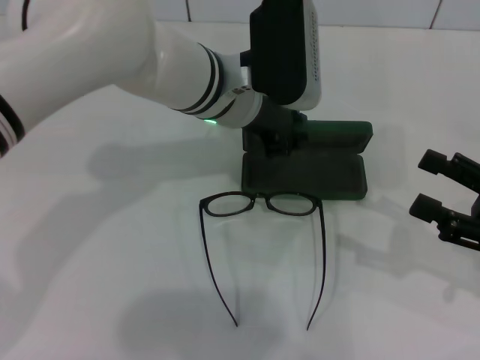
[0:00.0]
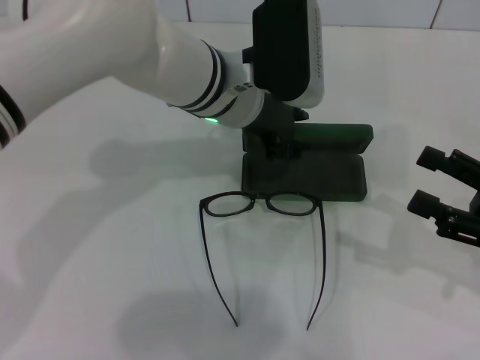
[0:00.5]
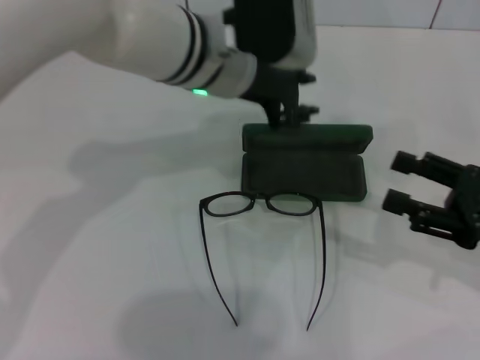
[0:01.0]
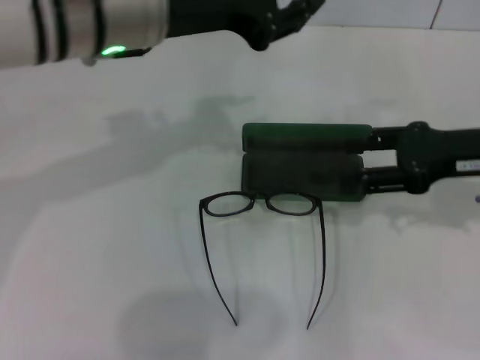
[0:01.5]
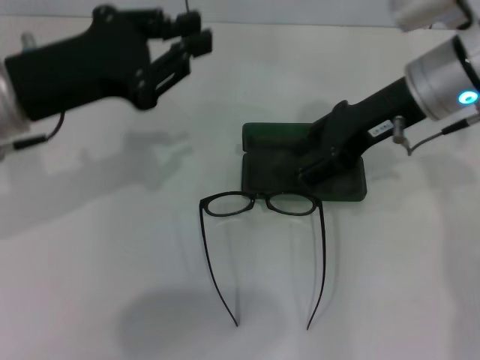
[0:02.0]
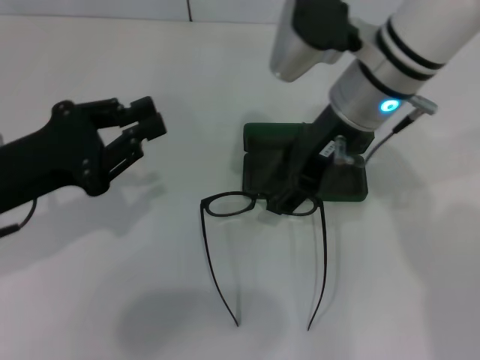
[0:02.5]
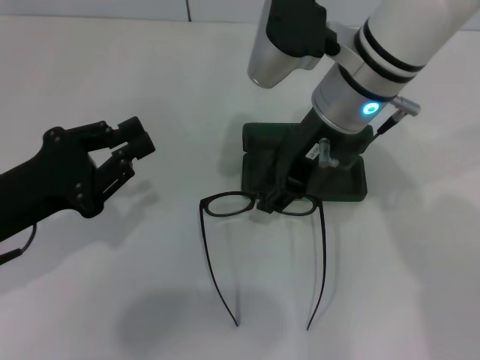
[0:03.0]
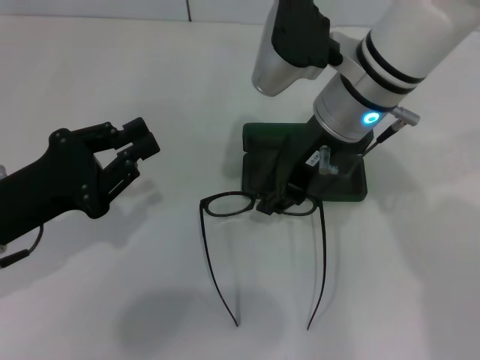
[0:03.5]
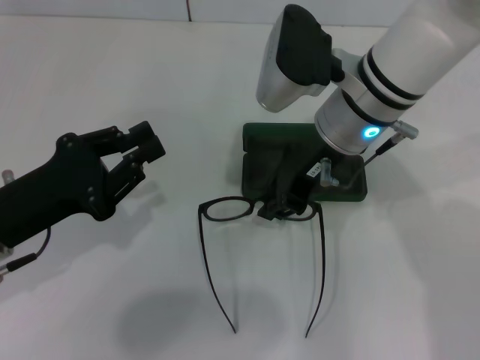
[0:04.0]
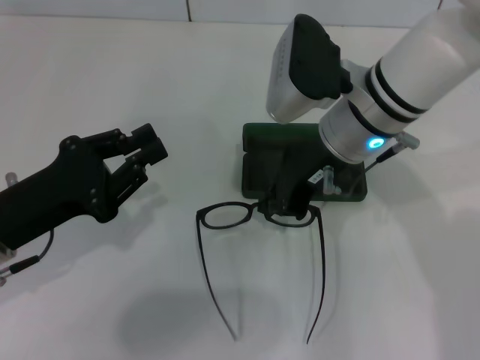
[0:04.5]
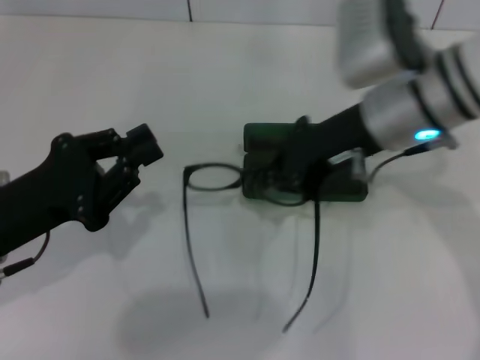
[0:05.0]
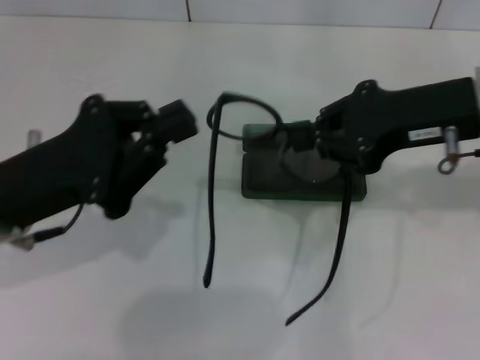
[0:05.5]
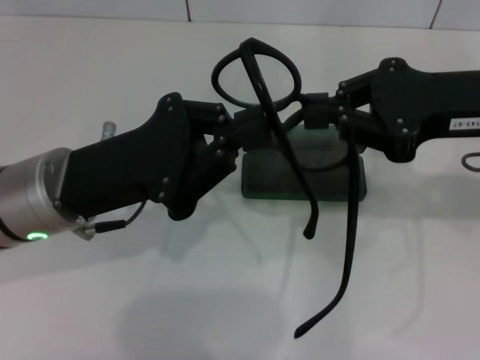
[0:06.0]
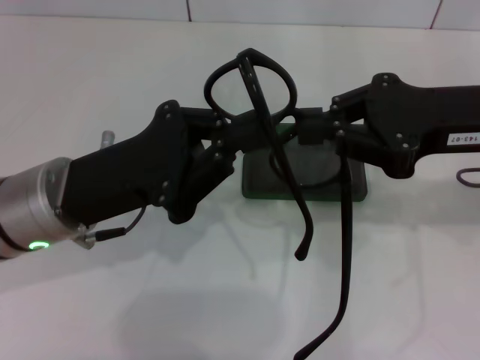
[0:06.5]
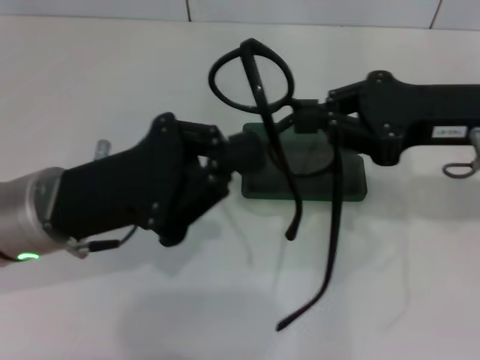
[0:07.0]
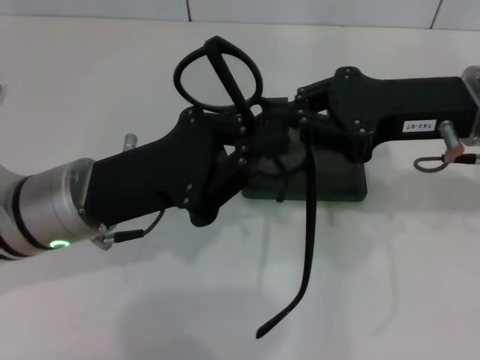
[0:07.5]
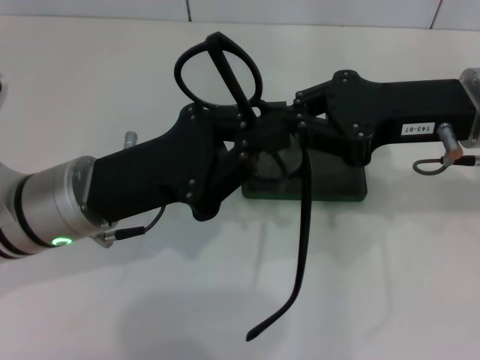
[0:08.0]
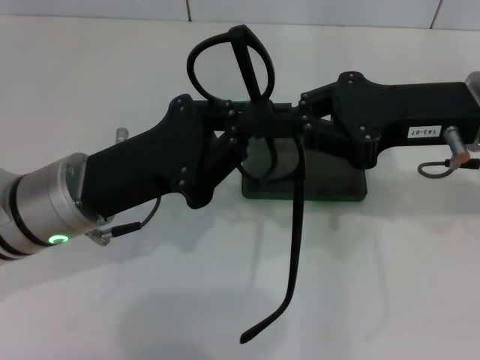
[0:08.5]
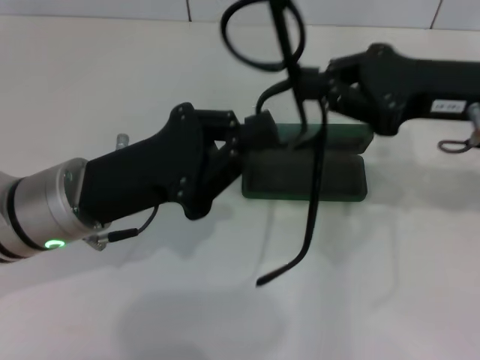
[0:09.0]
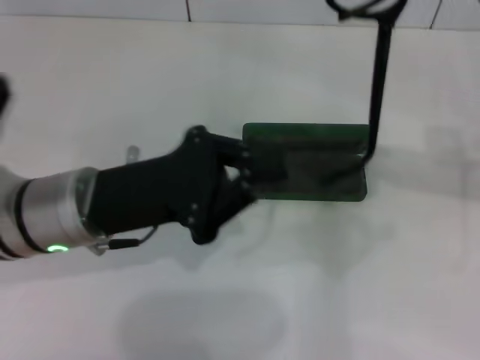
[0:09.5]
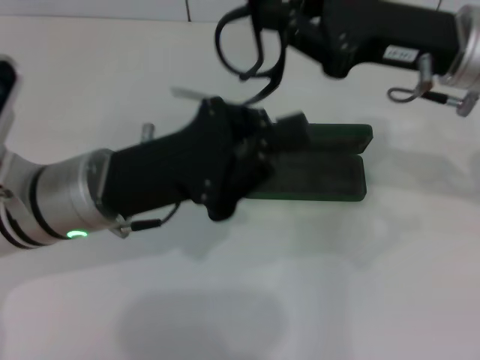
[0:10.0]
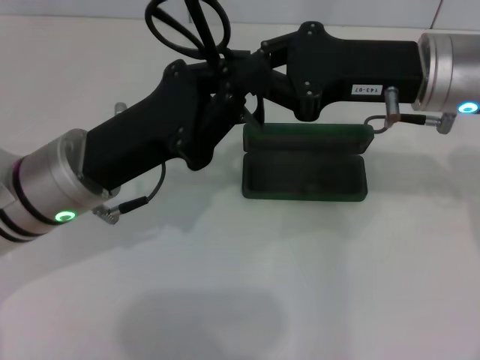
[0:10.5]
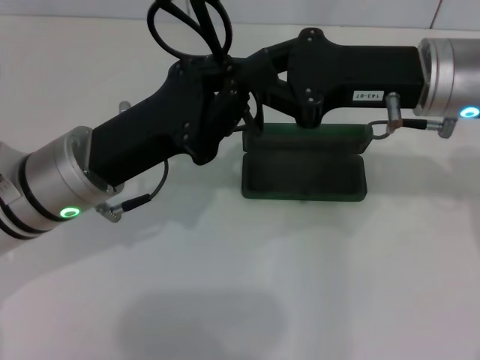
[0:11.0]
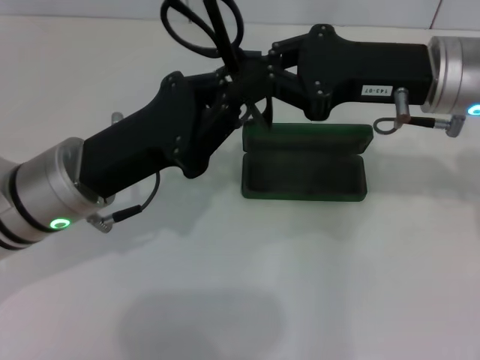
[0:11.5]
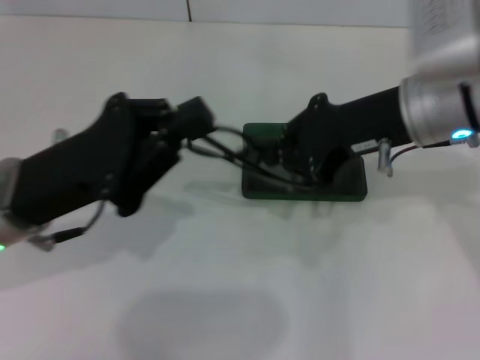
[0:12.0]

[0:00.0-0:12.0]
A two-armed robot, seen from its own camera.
Step, 0:00.0 to 0:04.0: Grab the eyeglass frame with your right hand.
Step, 0:04.5 to 0:11.0: Fold the frame with your left hand.
0:00.0 to 0:02.0: The left gripper shifts roughly 20 cm to the left and backward. The right gripper heads to the left, forward and upward, covering approximately 25 cm.
0:02.0 to 0:04.0: The left gripper travels downward and backward by some 10 cm; the right gripper is displaced to the left by about 10 cm, and closes up.
0:04.0 to 0:06.0: The left gripper travels to the right by about 10 cm, while the right gripper shifts about 15 cm to the right and backward.
0:06.0 to 0:08.0: The grippers move only a little.
0:08.0 to 0:10.0: The right gripper moves some 5 cm to the right and comes back.
0:10.0 to 0:12.0: The left gripper heads to the left, covering roughly 5 cm.

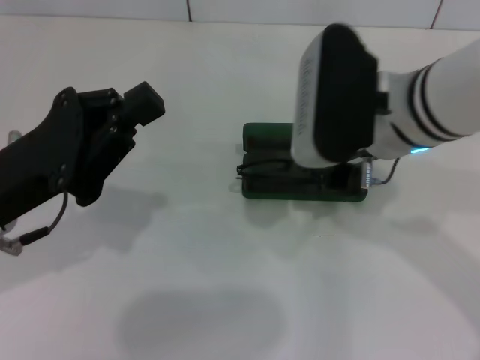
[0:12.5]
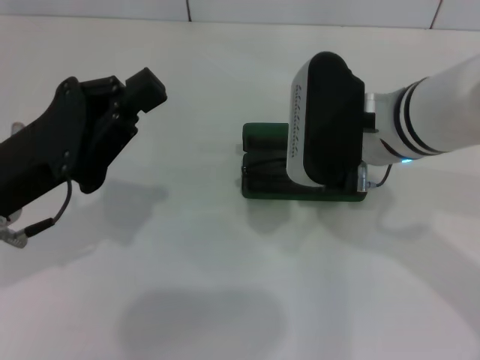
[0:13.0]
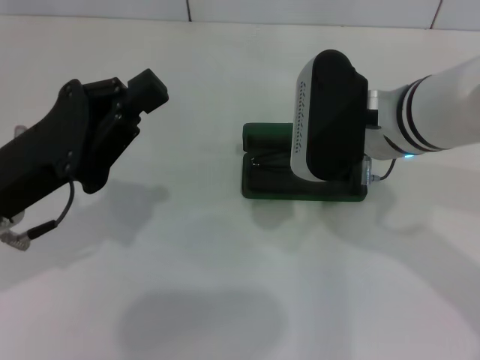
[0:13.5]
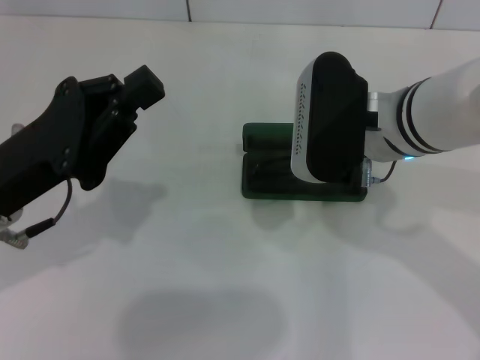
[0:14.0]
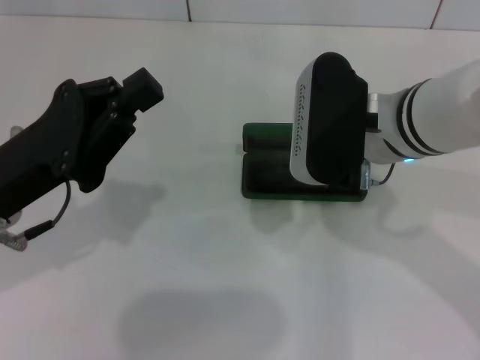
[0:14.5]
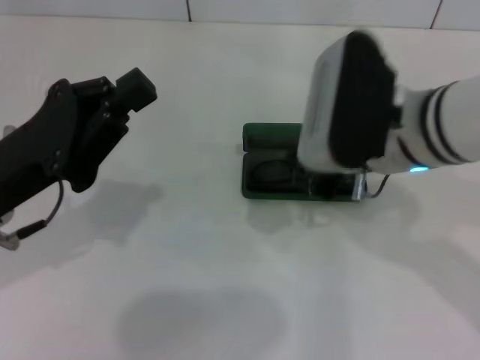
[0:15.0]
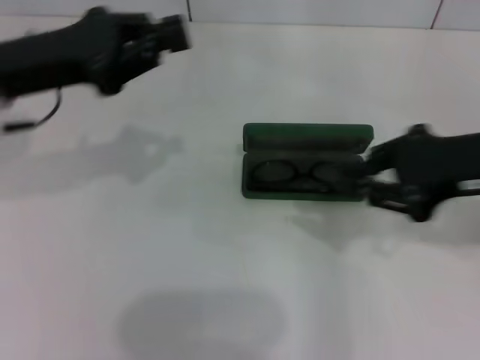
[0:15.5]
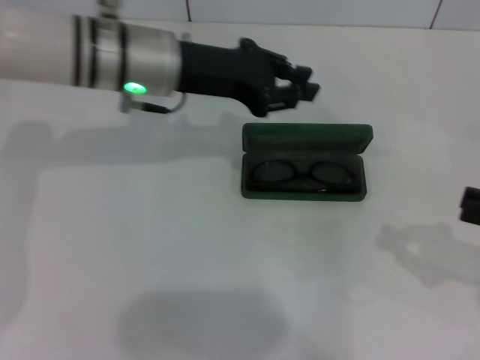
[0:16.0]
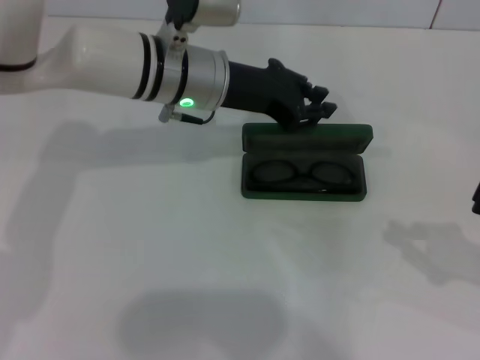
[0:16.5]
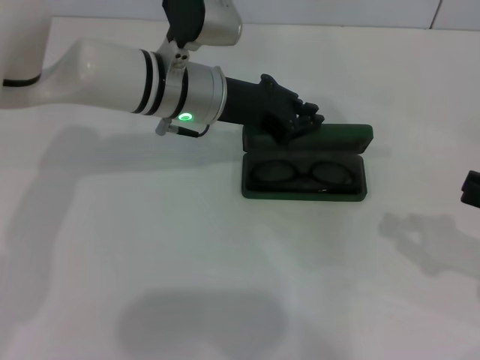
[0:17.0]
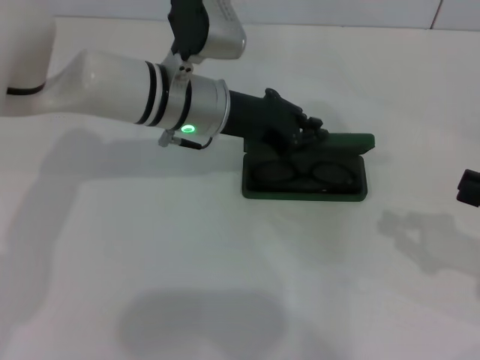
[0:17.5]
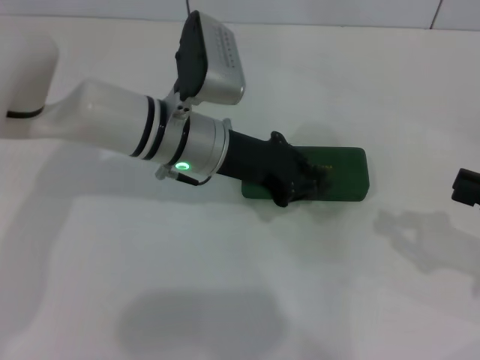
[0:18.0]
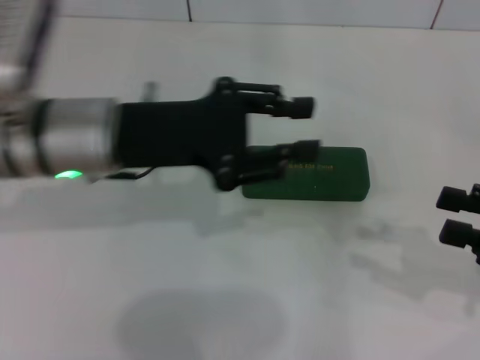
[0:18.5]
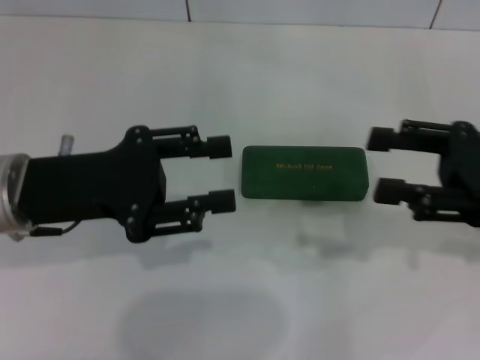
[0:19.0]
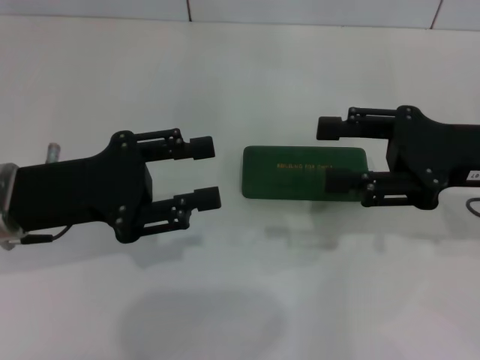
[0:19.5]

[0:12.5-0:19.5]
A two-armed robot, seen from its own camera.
Step, 0:12.5 to 0:14.5: Put the glasses into the case with your right hand.
Step, 0:15.0 to 0:17.5: Close the glasses case with your left hand.
0:12.5 to 0:14.5: The grippers make only small movements.
0:14.5 to 0:16.0: The right gripper is displaced to the right and backward by some 25 cm. The left gripper travels forward and to the right by roughly 20 cm.
0:16.0 to 0:17.5: The left gripper changes place by roughly 5 cm.
0:17.5 to 0:19.5: The right gripper shifts some 15 cm to the left and forward, and opens up. The left gripper goes some 20 cm to the left and backward, and opens.

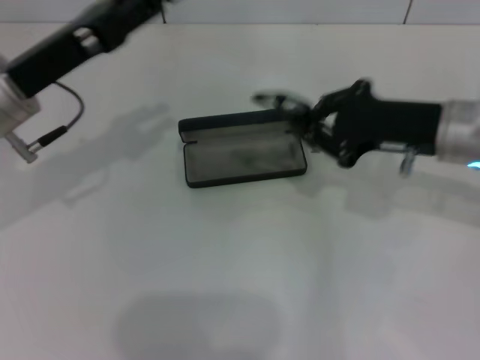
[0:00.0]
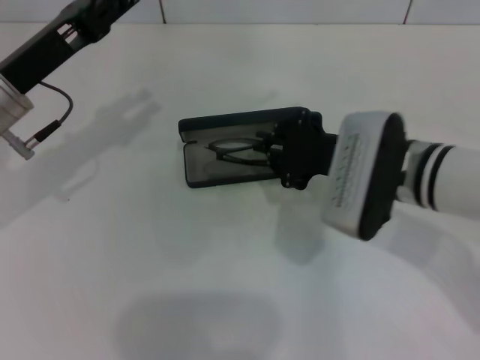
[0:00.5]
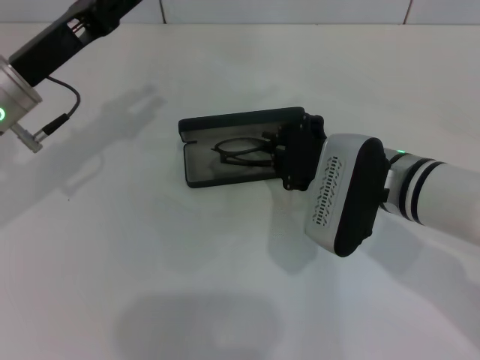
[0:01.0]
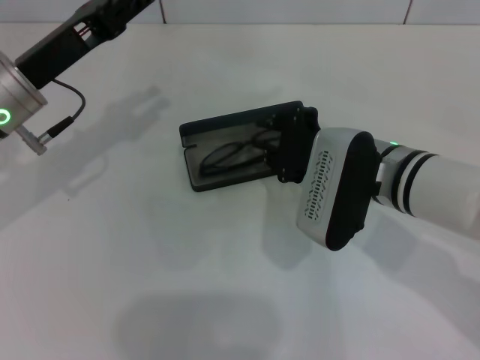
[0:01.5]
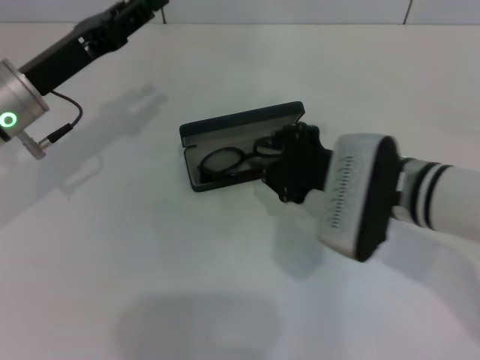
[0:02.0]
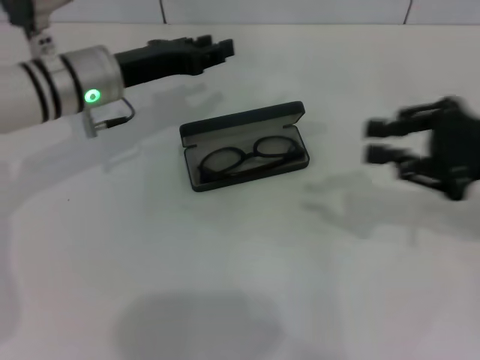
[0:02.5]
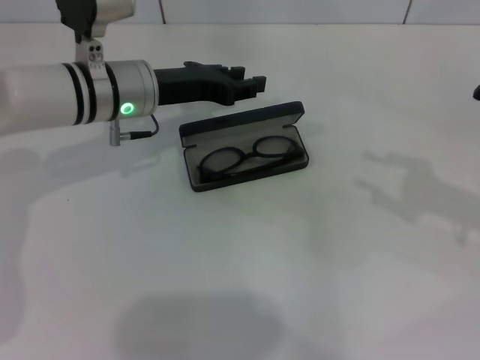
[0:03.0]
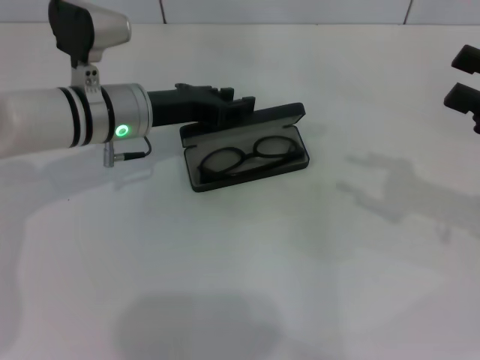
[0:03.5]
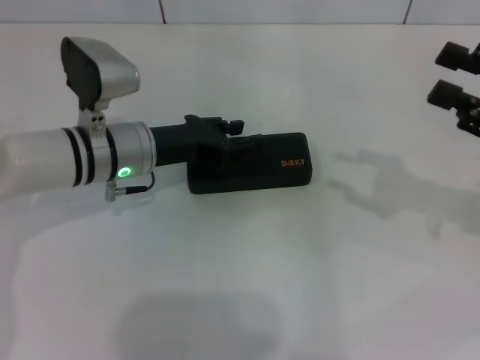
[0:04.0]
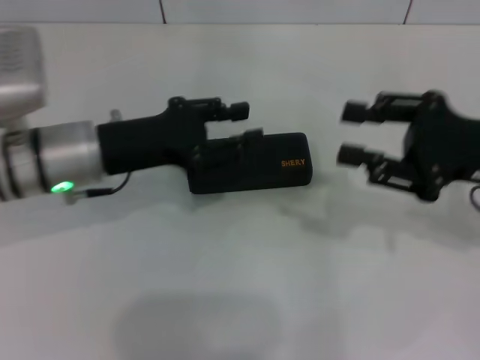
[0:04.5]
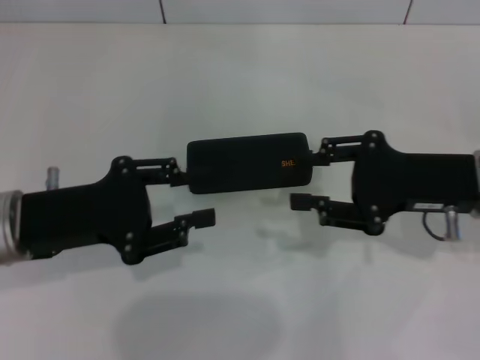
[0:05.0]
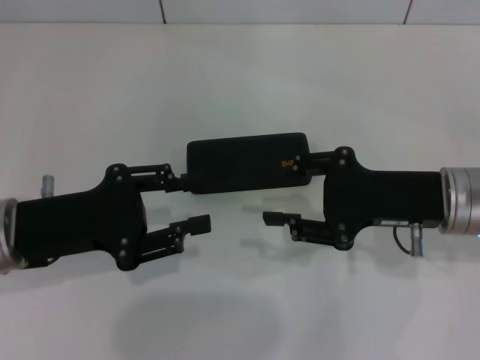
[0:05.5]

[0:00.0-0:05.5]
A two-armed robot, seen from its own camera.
0:00.0 to 0:02.0: The right gripper moves to the left, approximately 10 cm.
0:02.0 to 0:03.5: The left gripper moves to the right, about 10 cm. Meanwhile the right gripper travels to the right by about 20 cm.
0:03.5 to 0:05.5: The right gripper is displaced to the left by roughly 15 cm; the left gripper moves backward and to the left, some 15 cm.
